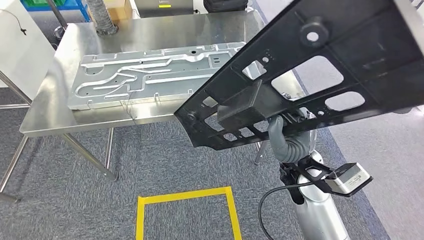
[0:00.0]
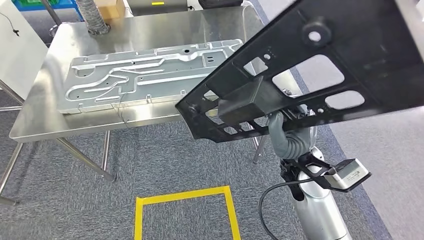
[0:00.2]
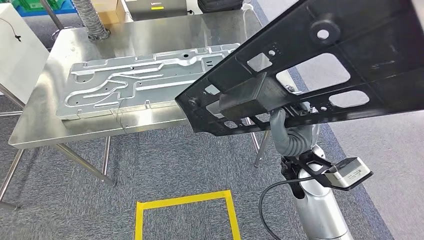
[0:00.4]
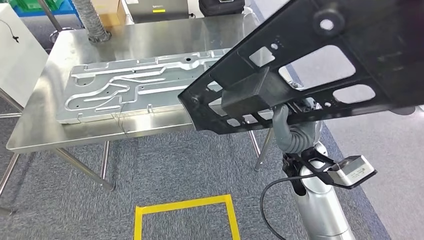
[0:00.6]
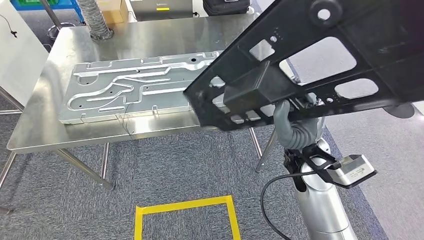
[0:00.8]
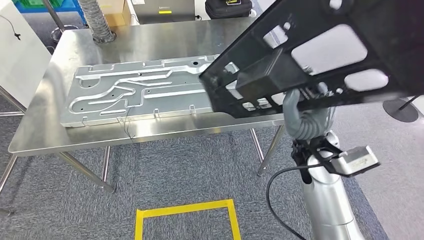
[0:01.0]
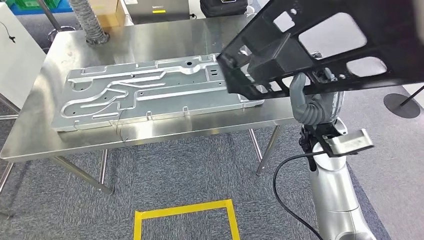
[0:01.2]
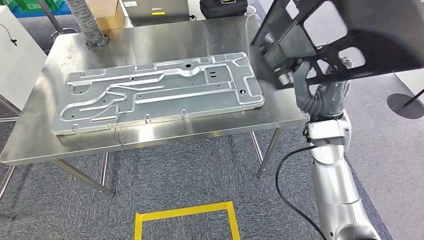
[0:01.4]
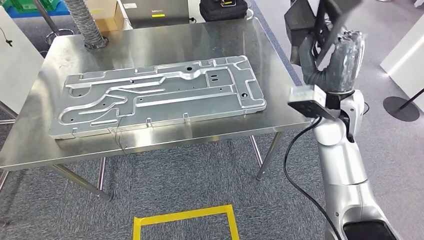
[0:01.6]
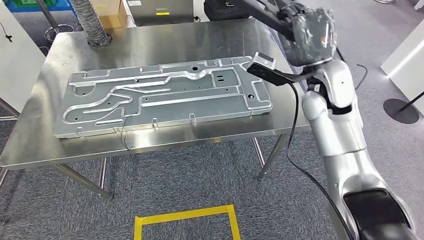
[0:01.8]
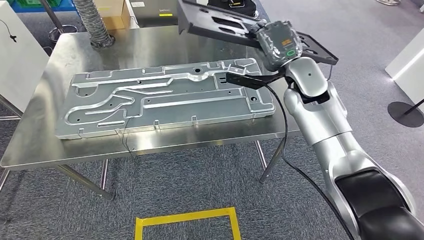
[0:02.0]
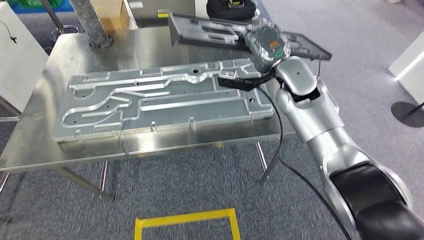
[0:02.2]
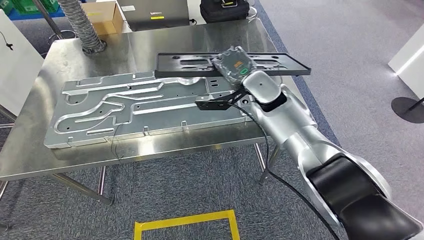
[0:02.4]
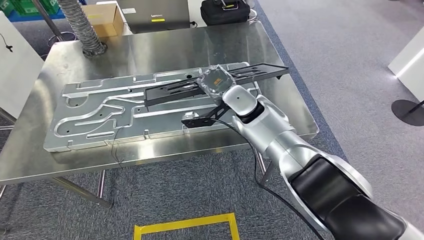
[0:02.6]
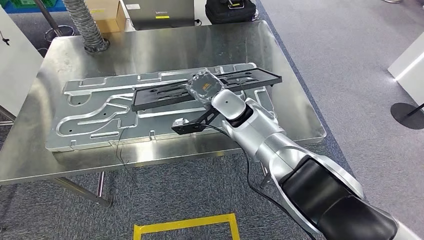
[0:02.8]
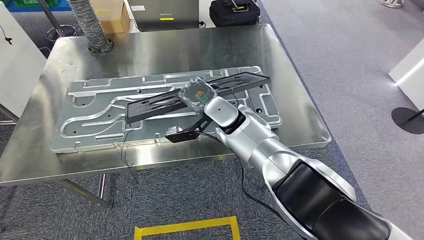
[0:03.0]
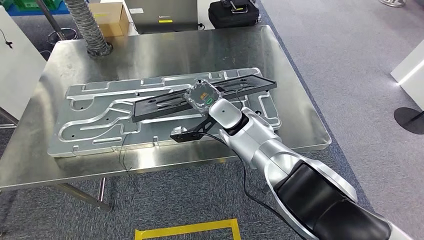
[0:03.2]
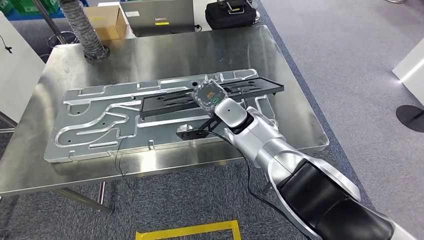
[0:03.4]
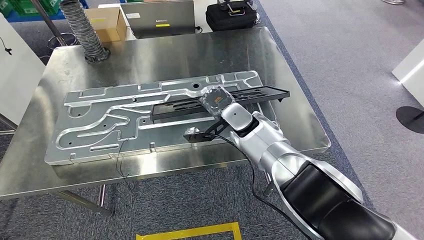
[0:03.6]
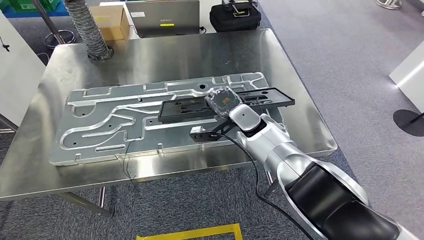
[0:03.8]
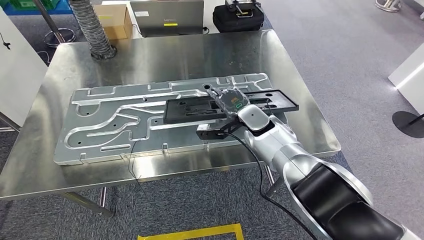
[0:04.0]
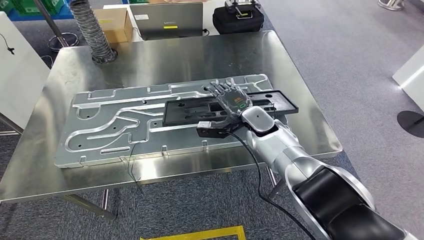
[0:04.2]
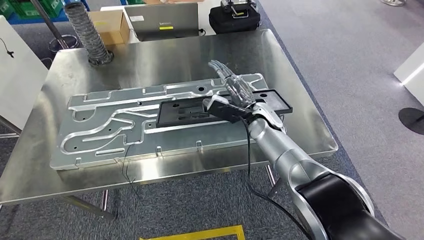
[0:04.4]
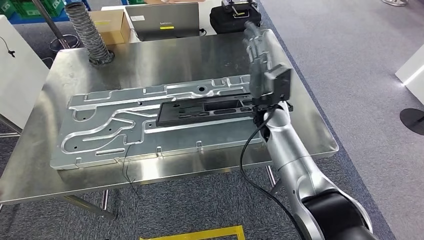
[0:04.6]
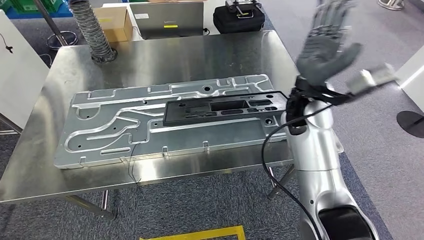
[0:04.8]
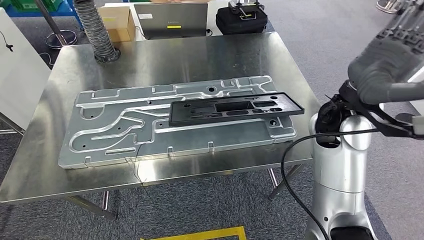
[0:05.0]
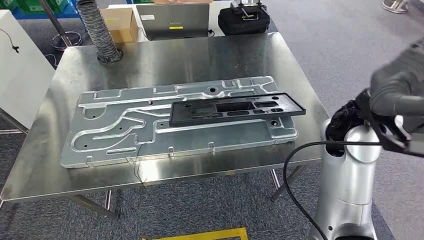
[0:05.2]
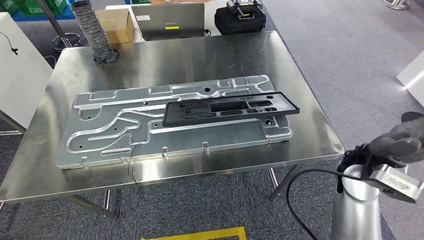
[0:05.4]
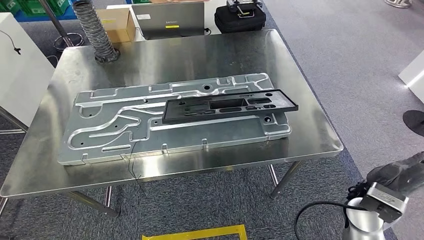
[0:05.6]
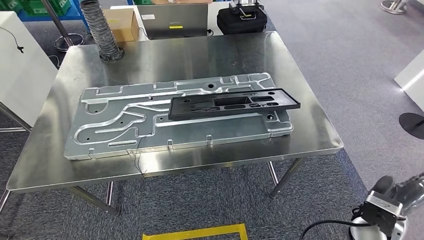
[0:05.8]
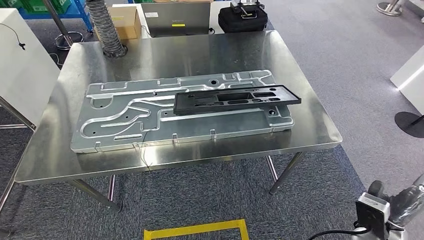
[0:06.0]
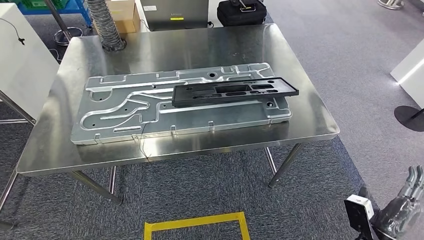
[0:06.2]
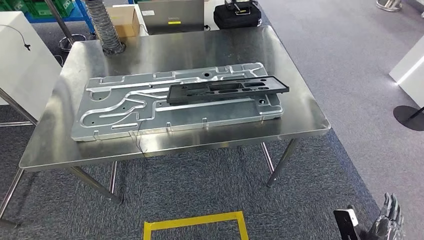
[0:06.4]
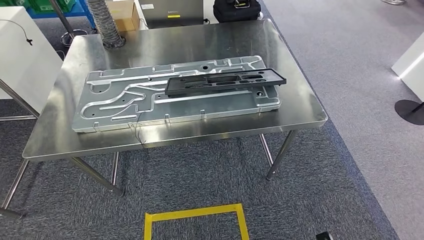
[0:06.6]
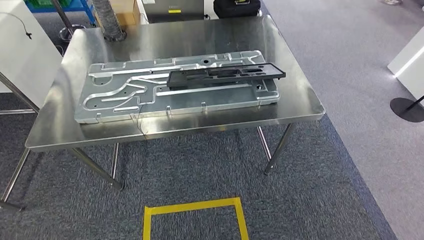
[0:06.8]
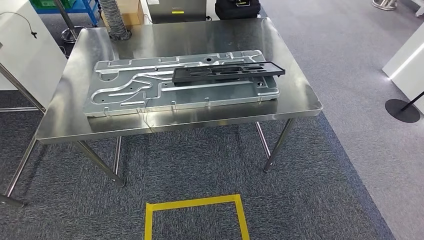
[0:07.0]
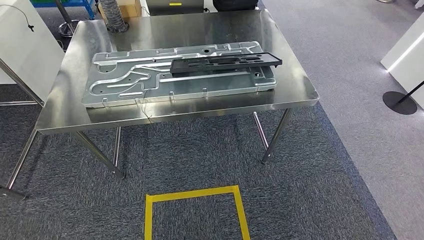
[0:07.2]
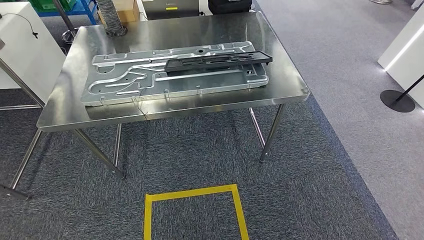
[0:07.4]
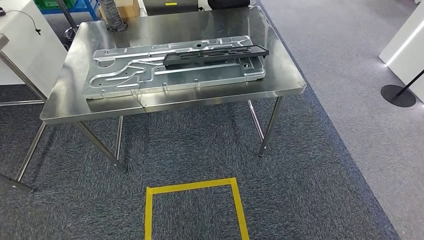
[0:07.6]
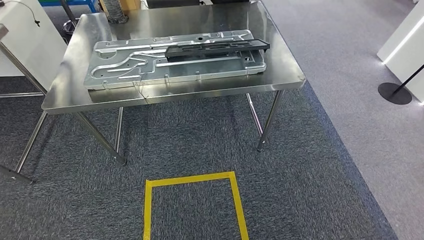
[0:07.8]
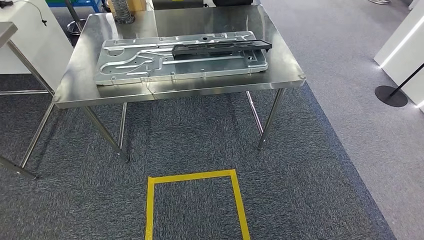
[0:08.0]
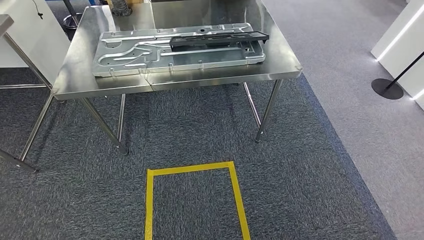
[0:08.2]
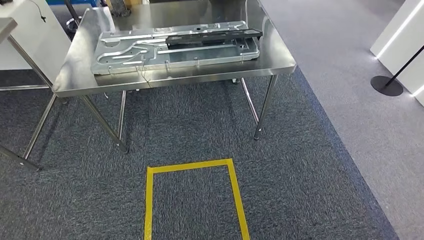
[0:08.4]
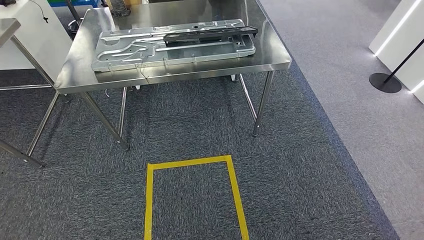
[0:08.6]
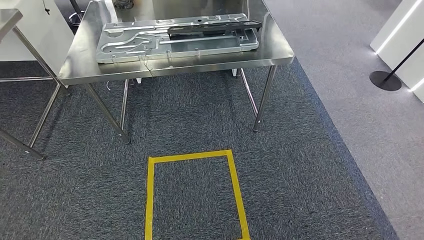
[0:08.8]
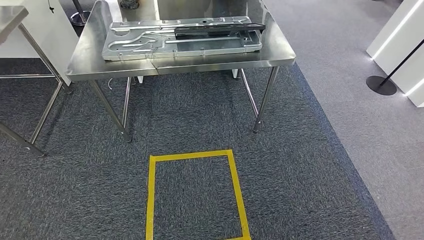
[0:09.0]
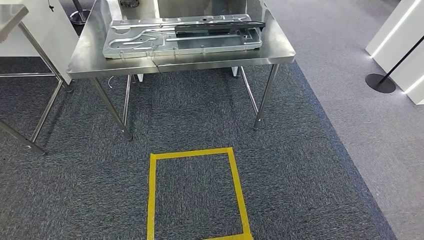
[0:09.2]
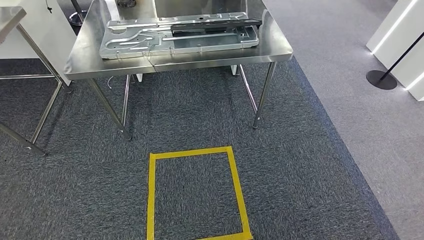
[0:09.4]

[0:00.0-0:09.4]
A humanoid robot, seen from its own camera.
Step, 0:01.6 to 0:05.4: Insert the large material into the corresponding slot on the workbench.
Step, 0:05.6 to 0:09.4: Move to the initial position of the shelf.
